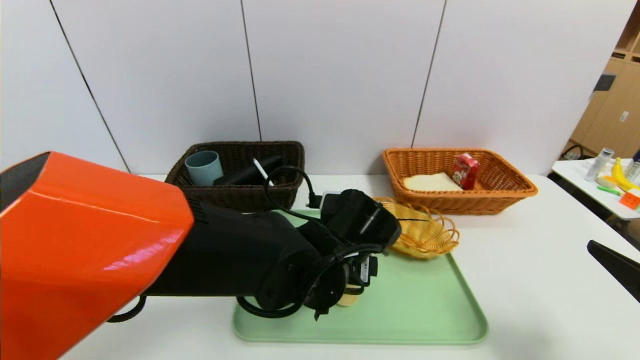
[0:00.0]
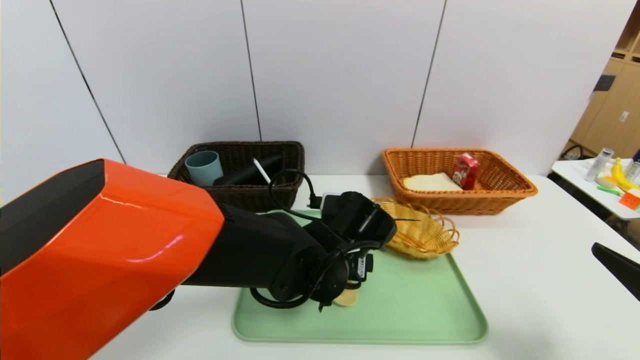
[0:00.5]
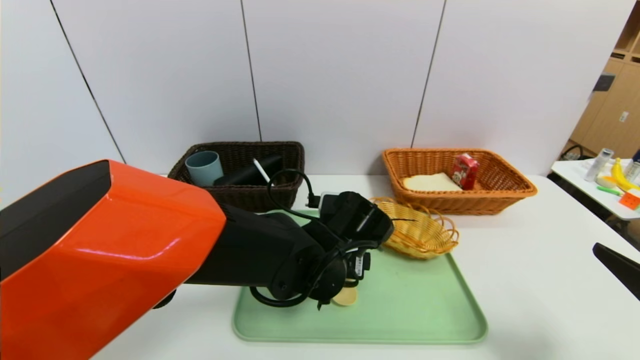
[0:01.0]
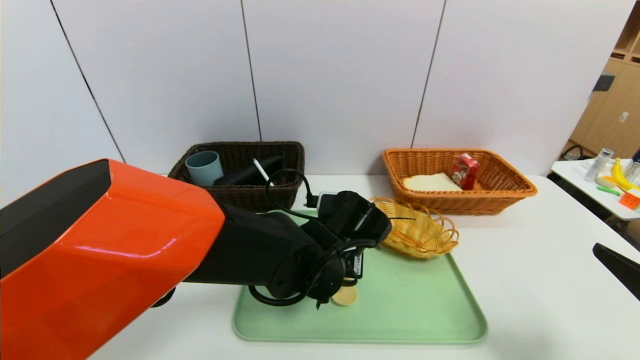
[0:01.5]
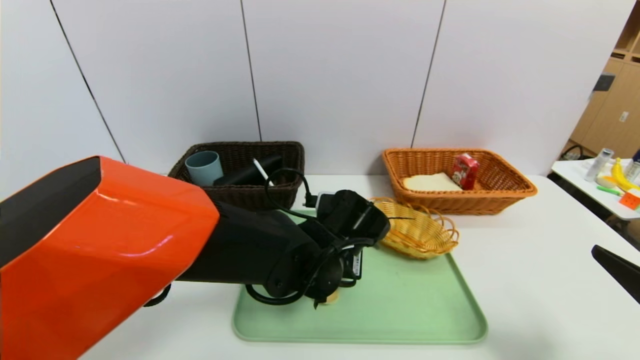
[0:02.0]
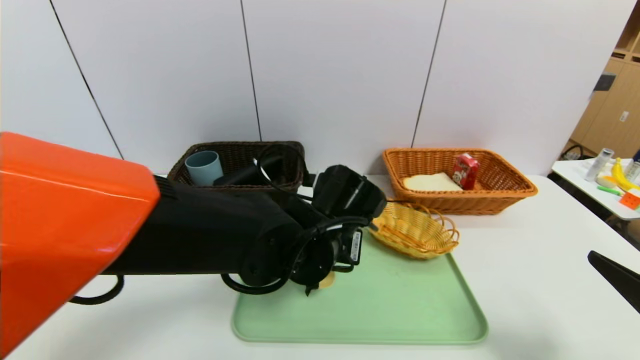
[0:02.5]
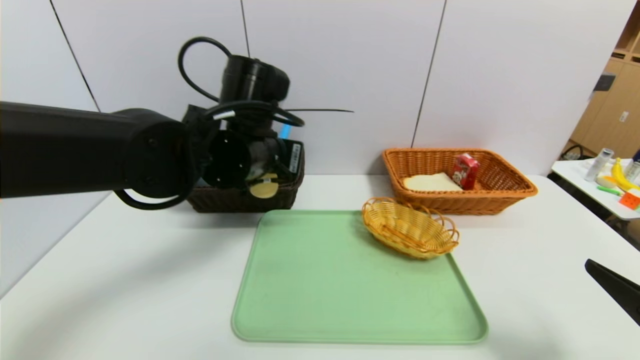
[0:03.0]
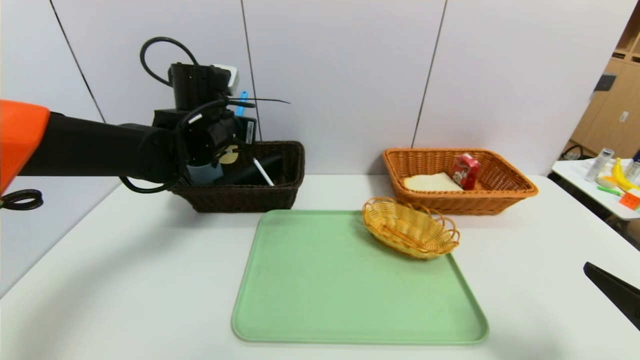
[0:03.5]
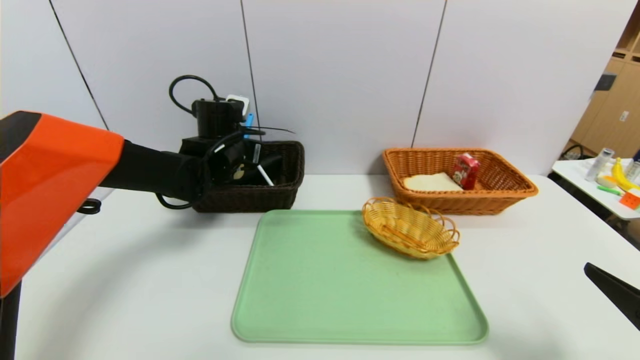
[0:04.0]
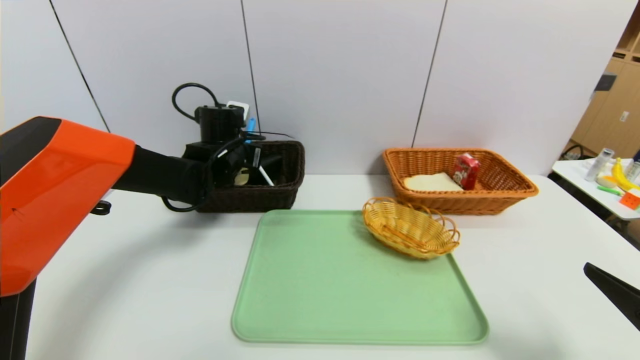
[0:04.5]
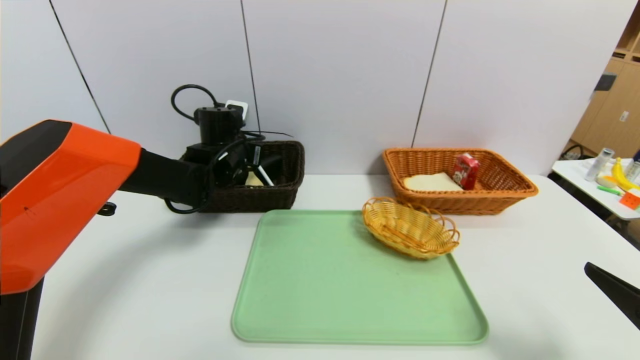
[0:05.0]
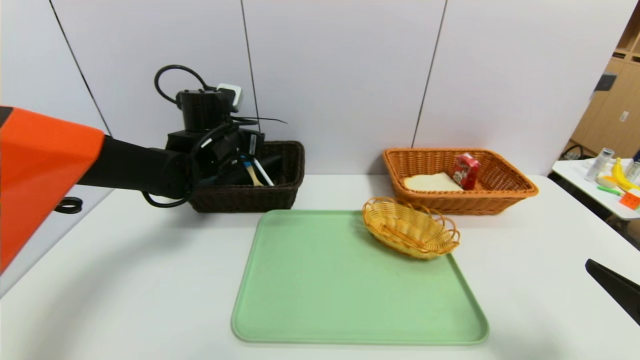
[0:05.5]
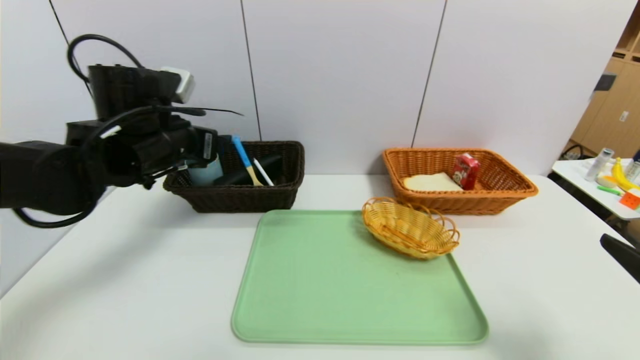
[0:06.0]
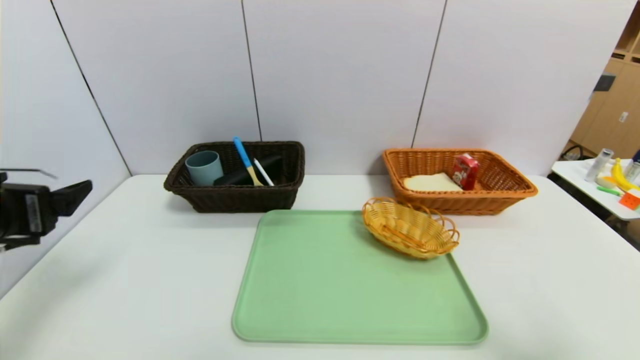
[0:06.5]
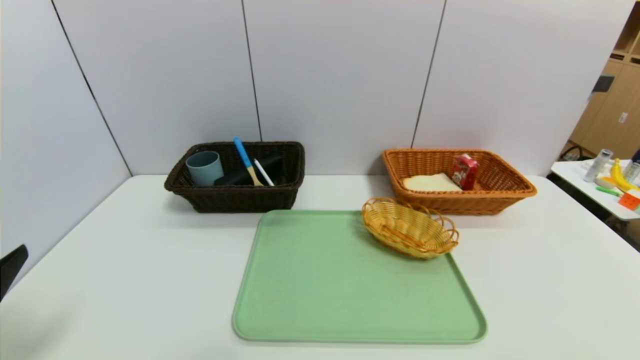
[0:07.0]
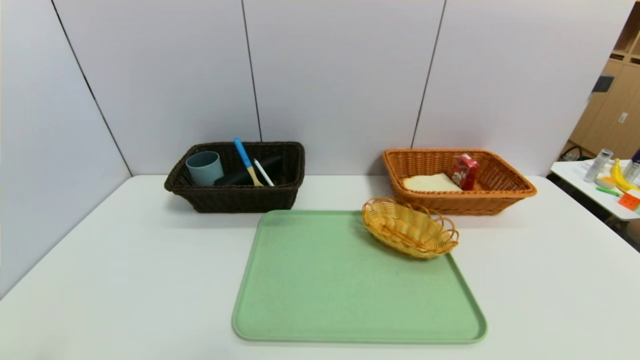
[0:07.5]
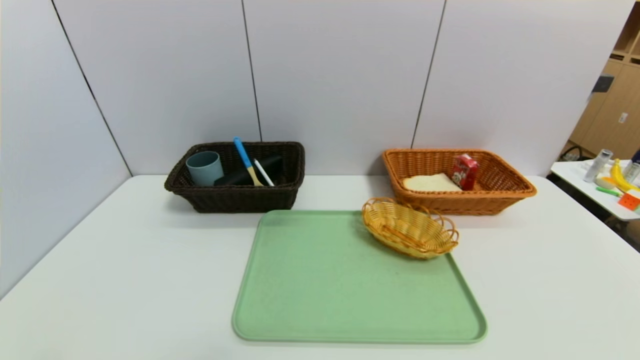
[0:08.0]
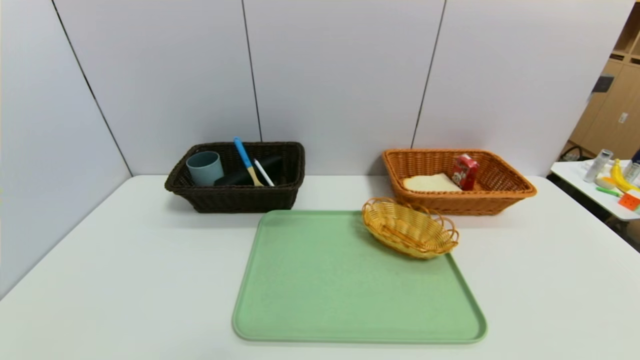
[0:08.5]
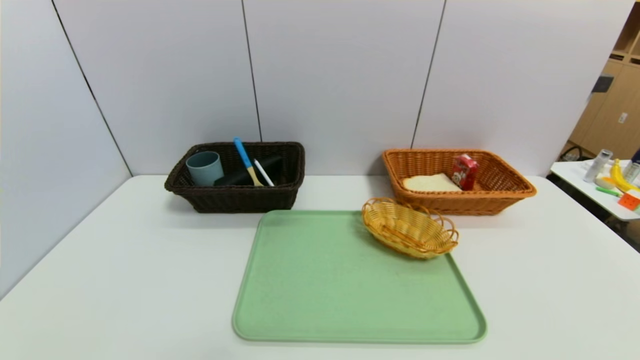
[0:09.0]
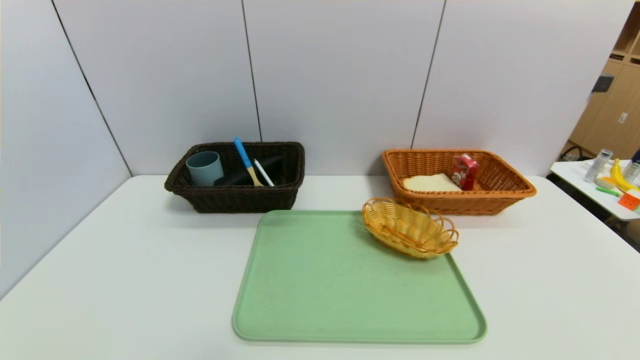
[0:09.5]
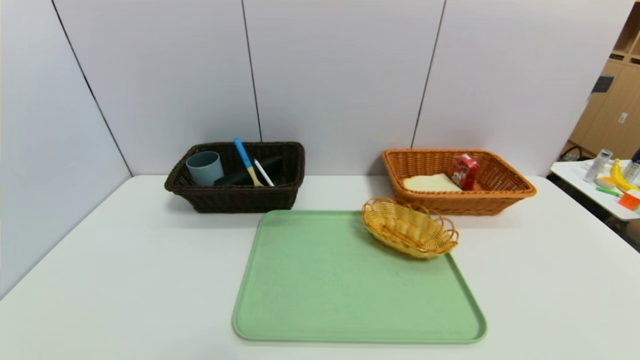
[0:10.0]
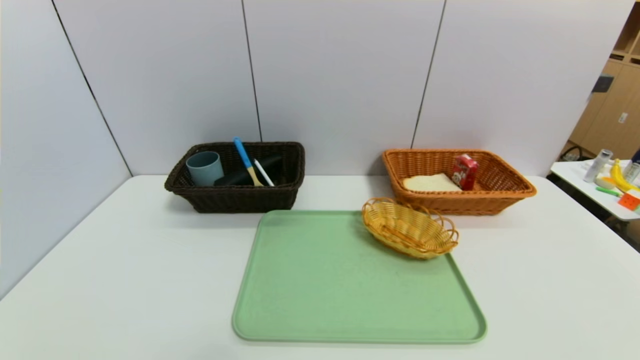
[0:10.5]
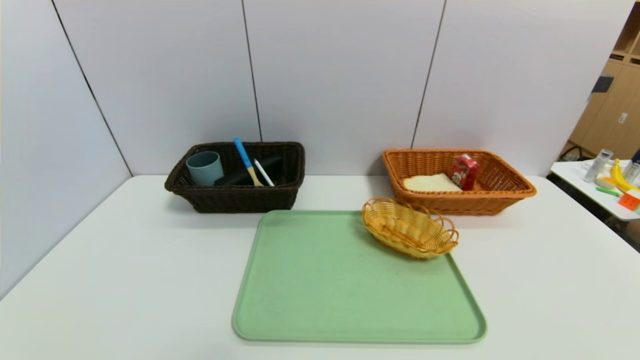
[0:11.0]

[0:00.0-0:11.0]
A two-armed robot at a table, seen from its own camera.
Task of the whole recording: place the food in the right basket with the right gripper, and place the non food items in the left basket with the left gripper.
Step, 0:00.0 to 0:05.0: Grasp the spoon and put it in the left basket.
0:00.0 to 0:02.0: The left gripper closes.
0:02.0 to 0:03.5: The left gripper goes approximately 25 cm to the left, upward and forward.
0:03.5 to 0:05.5: The left gripper opens its fingers.
0:05.5 to 0:07.5: The right gripper is displaced backward by some 15 cm; the left gripper is displaced backward by roughly 40 cm.
